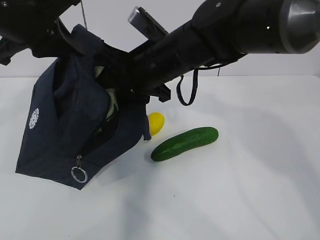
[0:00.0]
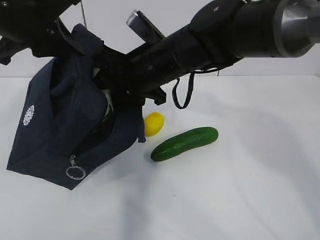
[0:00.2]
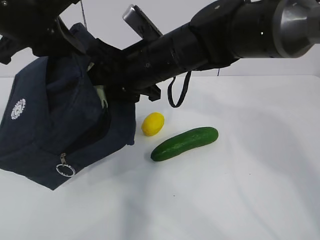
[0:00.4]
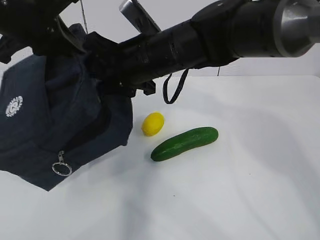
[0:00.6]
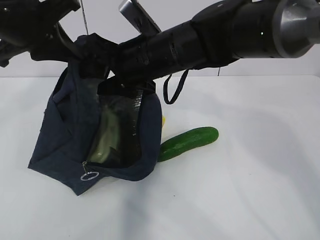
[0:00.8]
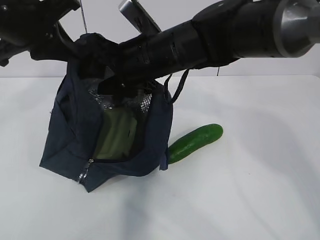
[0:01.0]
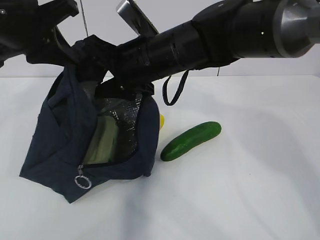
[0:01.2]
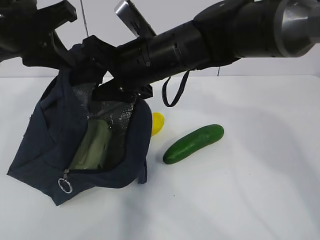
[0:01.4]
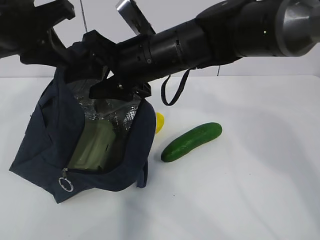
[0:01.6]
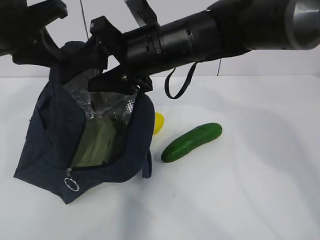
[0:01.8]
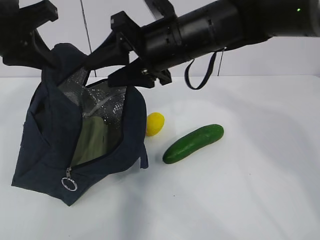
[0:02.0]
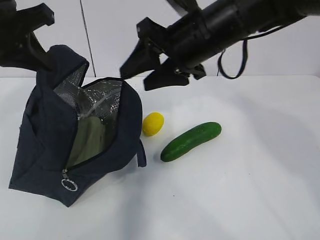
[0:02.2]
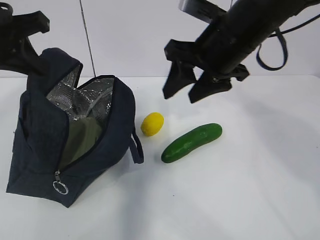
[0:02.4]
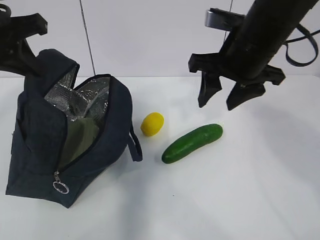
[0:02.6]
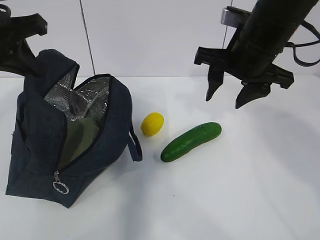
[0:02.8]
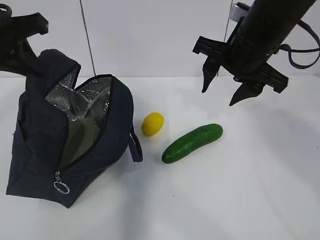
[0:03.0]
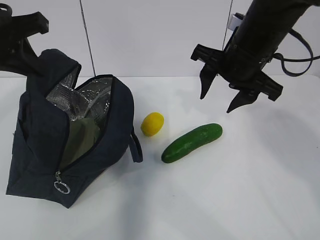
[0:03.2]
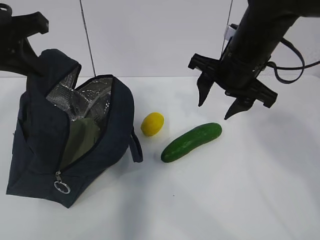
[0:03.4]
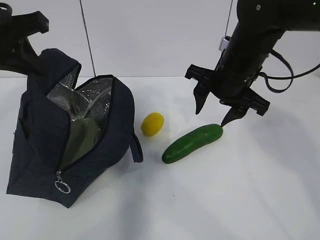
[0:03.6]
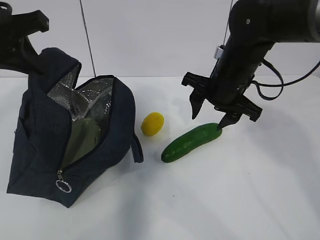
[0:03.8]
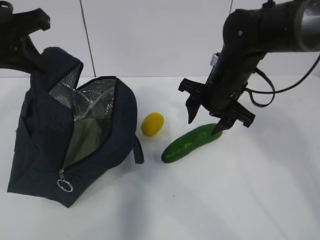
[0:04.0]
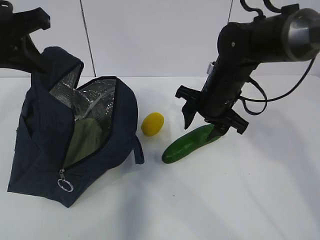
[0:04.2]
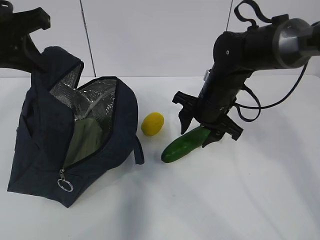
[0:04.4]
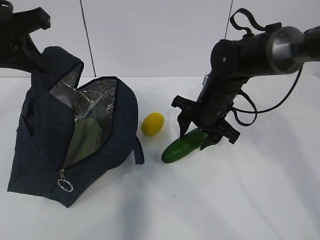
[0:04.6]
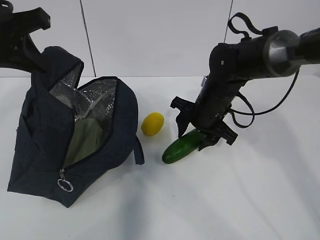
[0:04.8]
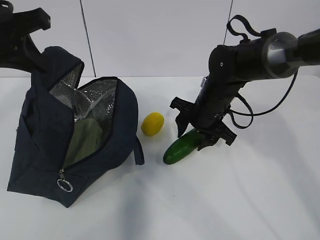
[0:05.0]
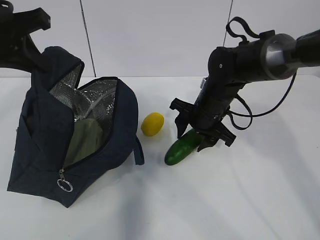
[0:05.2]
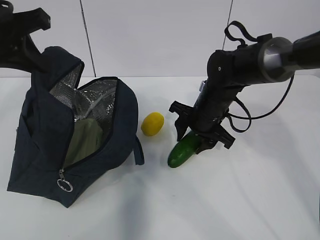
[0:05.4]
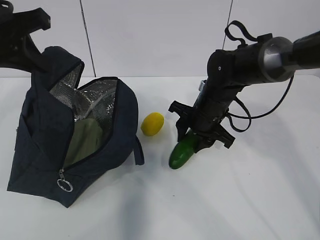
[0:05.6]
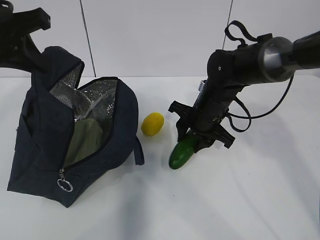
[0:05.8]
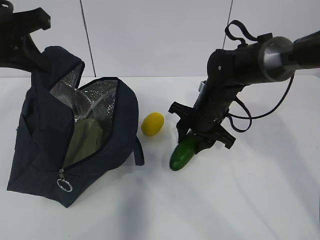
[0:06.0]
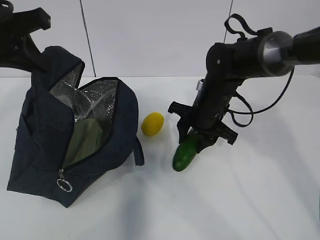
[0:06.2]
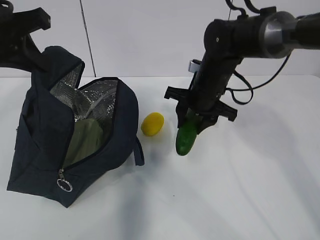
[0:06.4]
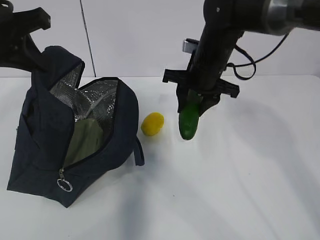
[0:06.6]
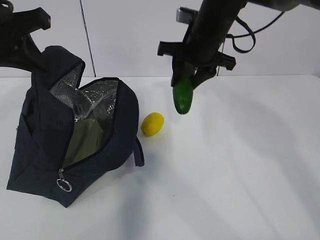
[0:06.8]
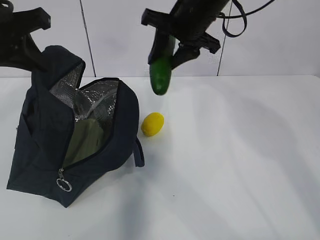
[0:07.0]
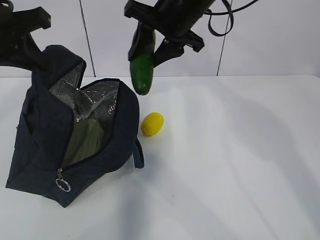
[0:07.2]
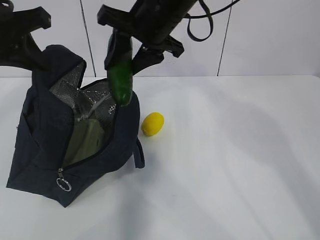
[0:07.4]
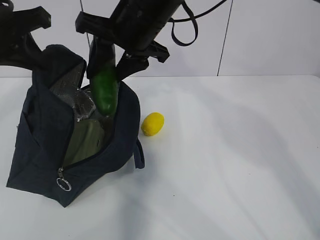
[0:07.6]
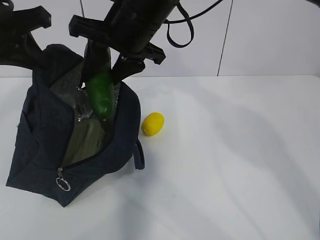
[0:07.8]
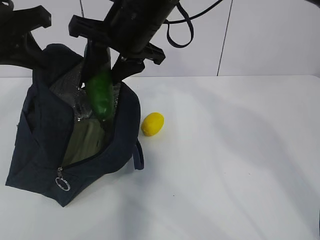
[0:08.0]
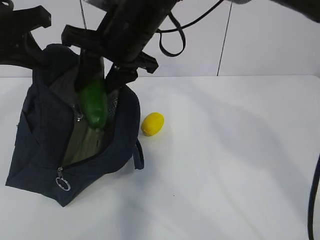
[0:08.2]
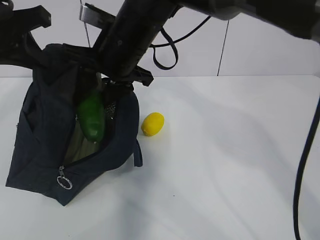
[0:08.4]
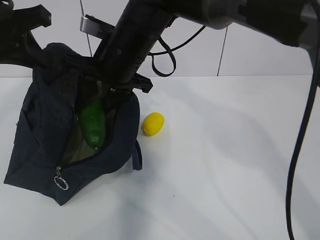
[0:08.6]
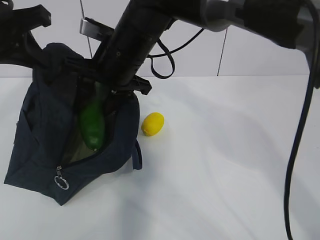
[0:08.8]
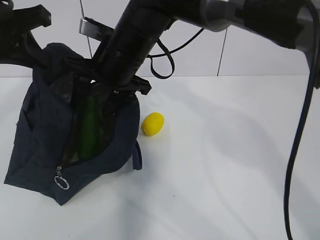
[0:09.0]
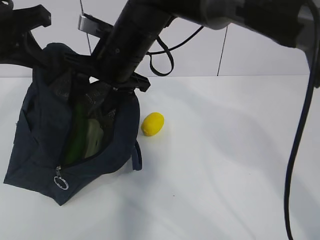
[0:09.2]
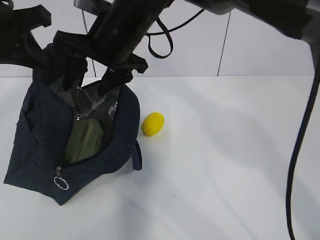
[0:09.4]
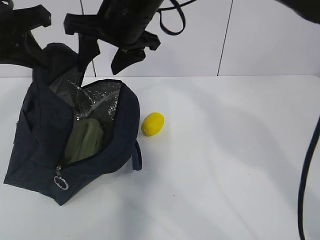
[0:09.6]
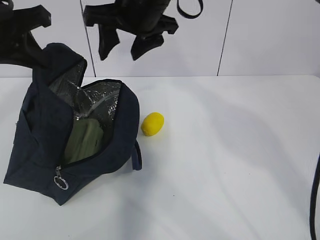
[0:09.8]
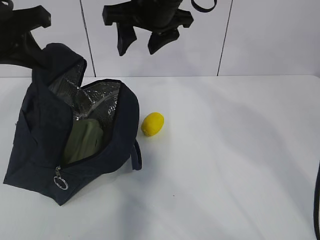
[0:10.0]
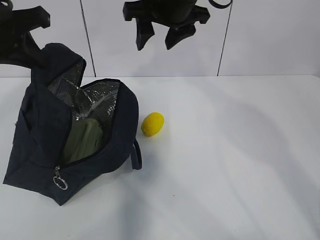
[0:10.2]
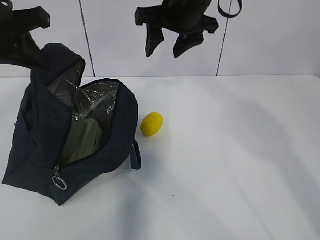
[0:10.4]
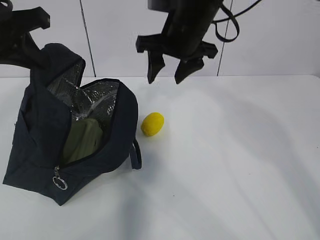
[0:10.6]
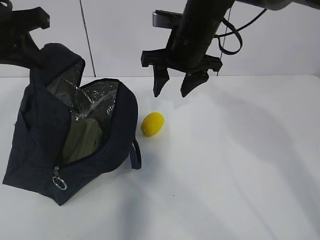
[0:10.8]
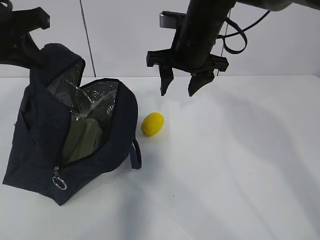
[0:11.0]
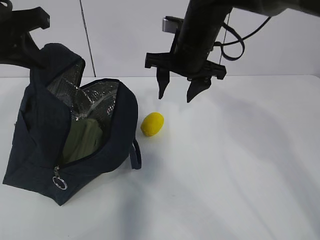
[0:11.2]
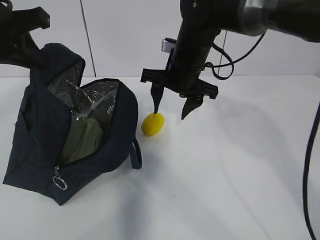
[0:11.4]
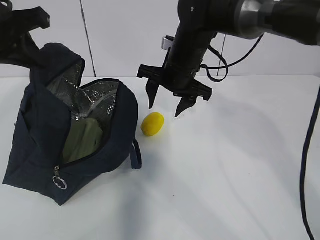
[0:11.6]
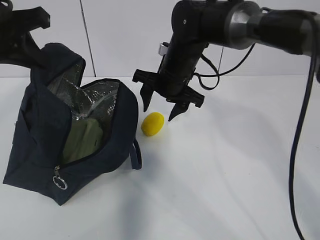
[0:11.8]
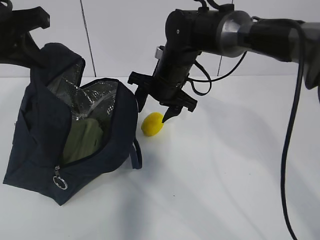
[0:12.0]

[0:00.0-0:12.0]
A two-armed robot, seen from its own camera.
Step, 0:01.6 to 0:04.2: Place it into the bag with your right hand.
Step, 0:04.6 to 0:07.6: Grab the lemon with your right hand.
0:00.0 to 0:01.6: The grippers move only a little.
0:01.6 to 0:03.0: The right gripper is displaced to the right by some 15 cm.
0:03.0 to 0:04.4: The right gripper moves downward, roughly 15 cm.
0:04.4 to 0:06.0: The grippers move only a little.
0:06.0 to 0:07.6: The right gripper is displaced upward and to the left by roughly 20 cm.
0:07.6 to 0:09.0: The right gripper is displaced downward by roughly 5 cm.
0:09.0 to 0:10.4: The right gripper goes approximately 10 cm to the right and upward.
0:10.4 to 0:12.0: The right gripper travels downward by about 15 cm.

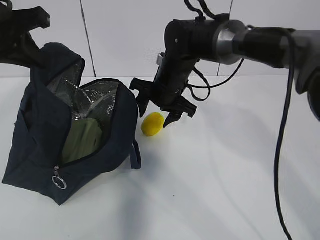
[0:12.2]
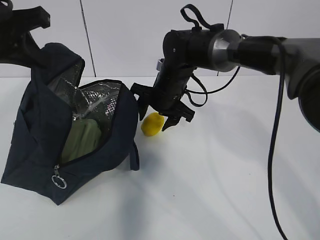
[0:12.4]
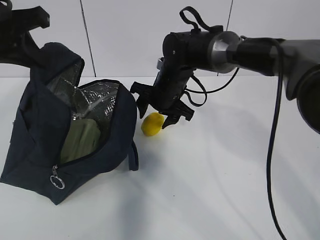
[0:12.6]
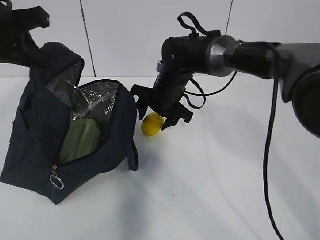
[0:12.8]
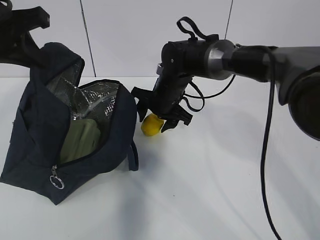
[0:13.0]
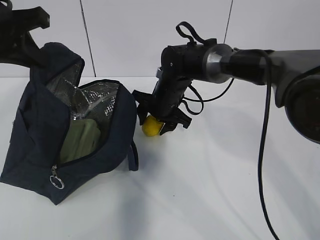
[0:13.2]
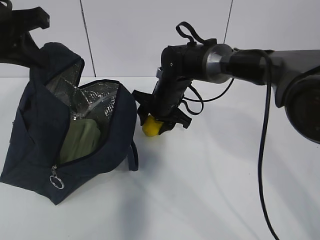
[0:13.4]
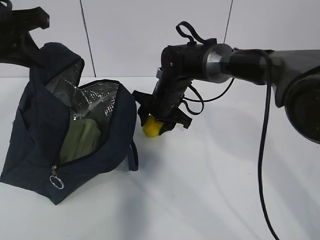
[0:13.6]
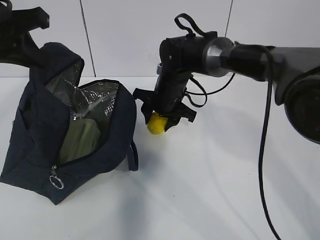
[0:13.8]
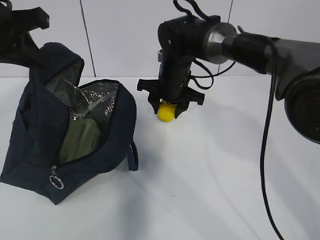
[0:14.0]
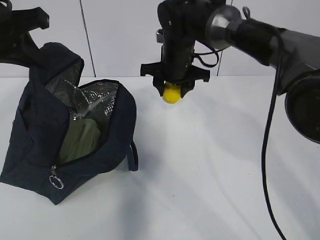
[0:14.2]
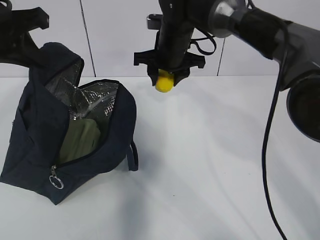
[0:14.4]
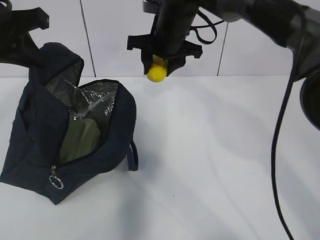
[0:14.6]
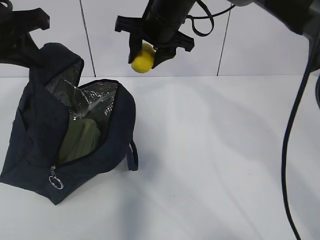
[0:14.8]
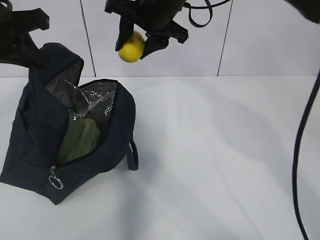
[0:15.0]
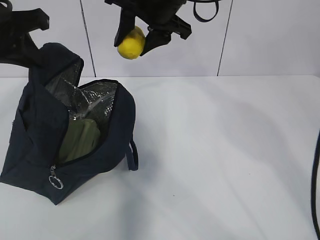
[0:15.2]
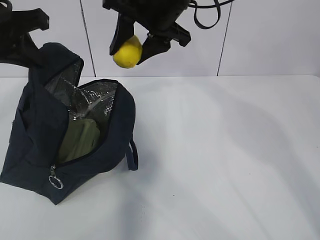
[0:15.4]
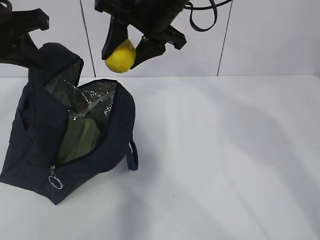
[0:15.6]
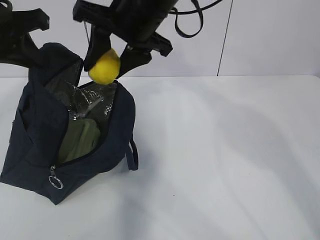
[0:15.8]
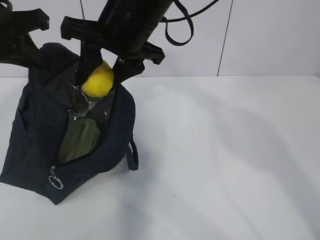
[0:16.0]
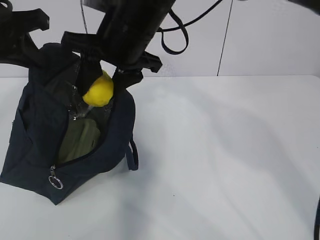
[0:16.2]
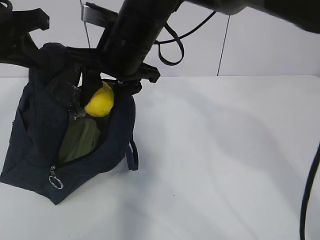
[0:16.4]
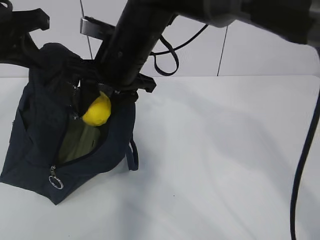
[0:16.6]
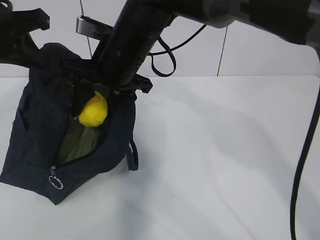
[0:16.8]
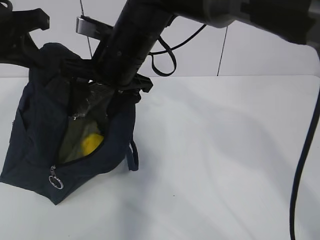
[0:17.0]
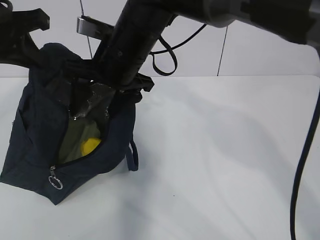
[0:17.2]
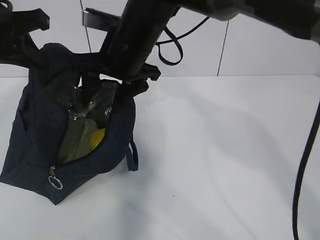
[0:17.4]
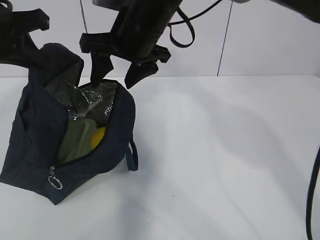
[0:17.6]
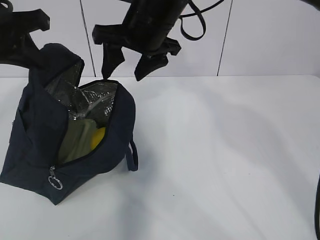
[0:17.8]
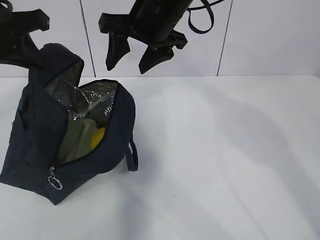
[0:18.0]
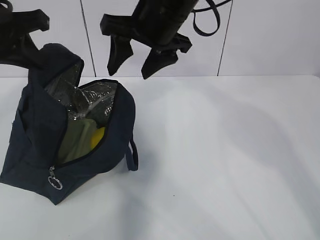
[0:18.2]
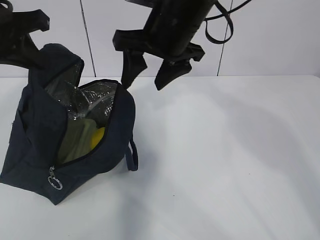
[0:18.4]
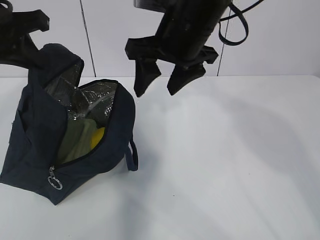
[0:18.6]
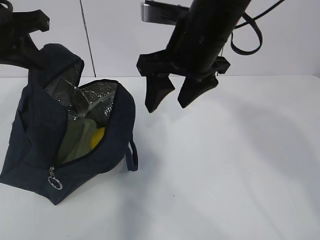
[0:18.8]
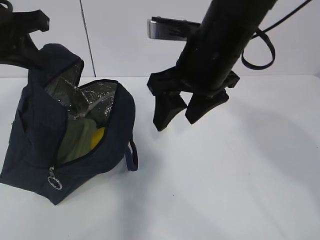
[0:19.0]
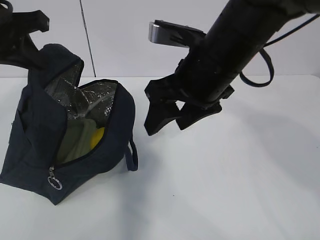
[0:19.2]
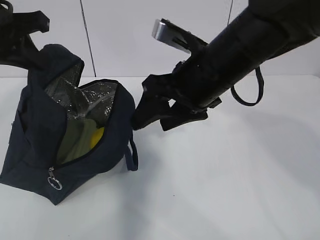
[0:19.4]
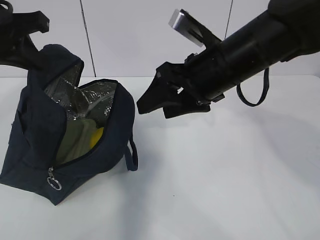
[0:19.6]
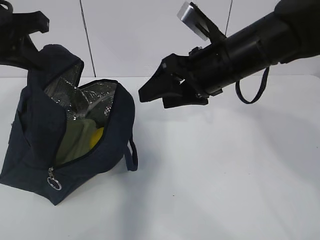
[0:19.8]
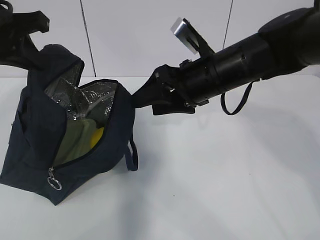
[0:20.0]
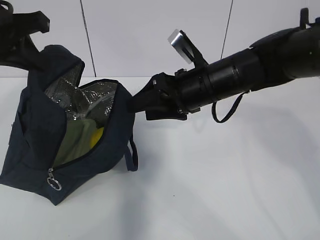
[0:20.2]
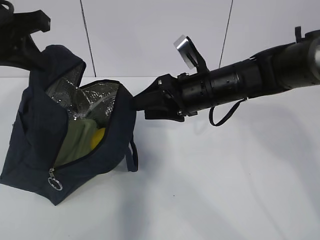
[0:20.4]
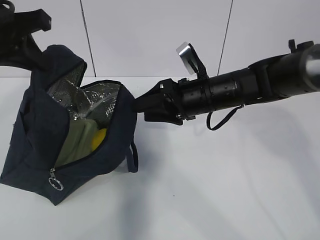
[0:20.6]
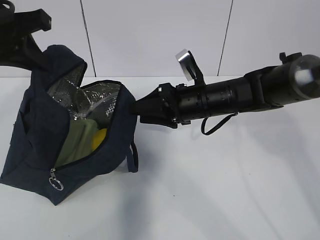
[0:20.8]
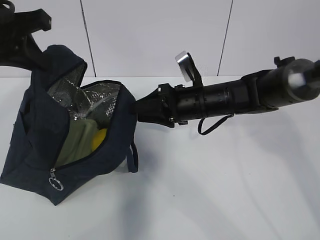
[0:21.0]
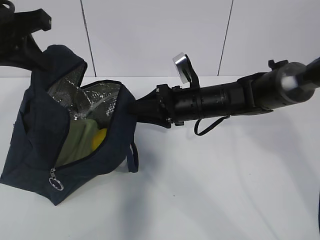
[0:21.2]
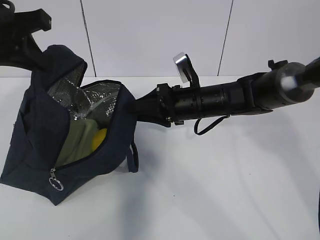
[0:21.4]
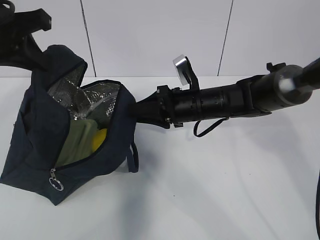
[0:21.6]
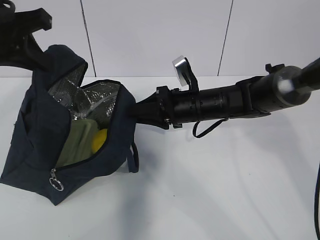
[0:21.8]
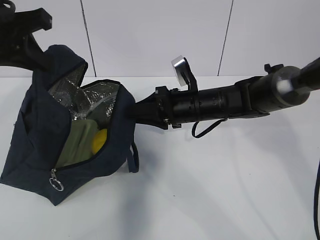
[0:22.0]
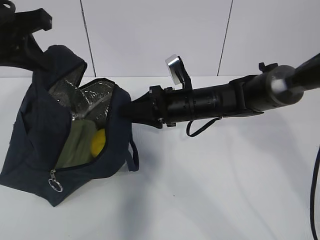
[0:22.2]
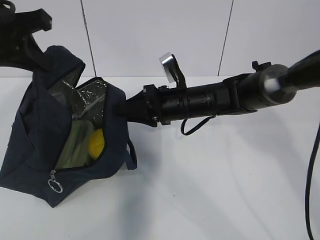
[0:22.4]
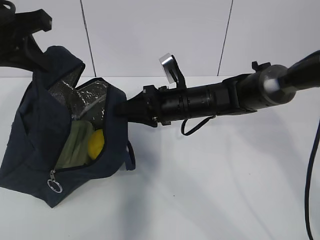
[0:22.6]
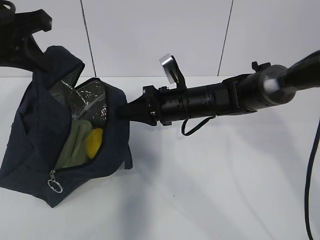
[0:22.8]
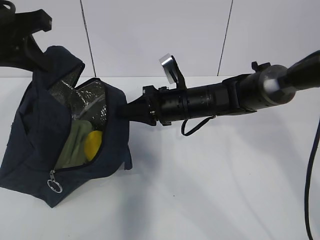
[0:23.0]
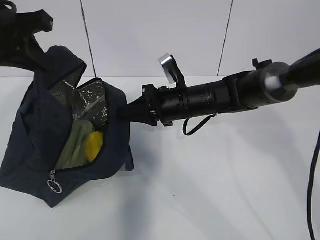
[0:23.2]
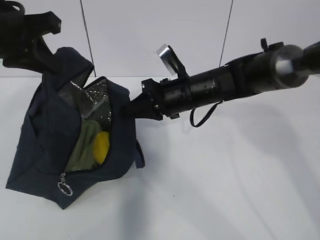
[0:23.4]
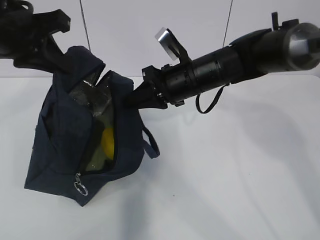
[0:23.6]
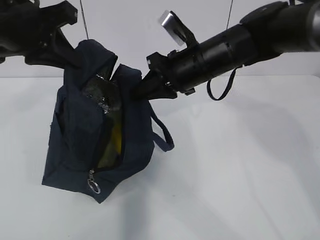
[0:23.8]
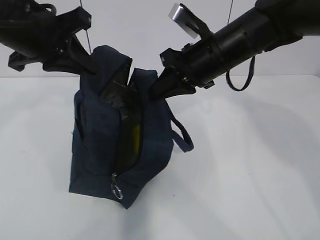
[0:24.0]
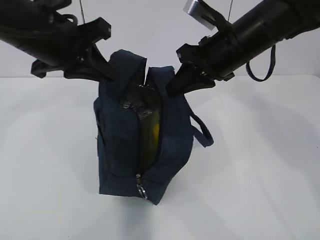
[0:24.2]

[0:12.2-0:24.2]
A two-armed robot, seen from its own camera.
Step, 0:12.2 to 0:15.6: Grab the lunch bag with your right hand.
Step, 0:15.8 to 0:19.4: Move the lunch bag to the right.
0:12.2 to 0:13.8: The grippers stay close to where they were, moving slightly.
0:13.8 to 0:15.2: The right gripper moves upward, approximately 20 cm.
0:15.2 to 0:16.6: The right gripper goes roughly 10 cm to the left, downward and backward.
0:16.6 to 0:18.2: The right gripper shifts some 10 cm to the right and upward.
0:18.2 to 0:19.8: The right gripper shifts some 10 cm to the right, downward and backward.
0:19.8 to 0:21.2: The right gripper travels downward and forward by about 15 cm.
0:21.2 to 0:22.6: The grippers move only a little.
0:22.6 to 0:24.2: The right gripper travels upward and to the right by some 15 cm, and closes up, while the left gripper goes approximately 5 cm to the right.
